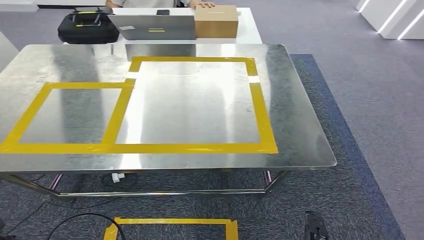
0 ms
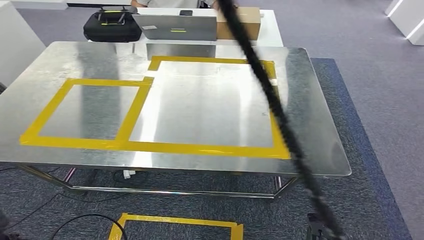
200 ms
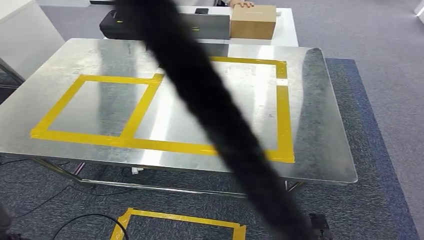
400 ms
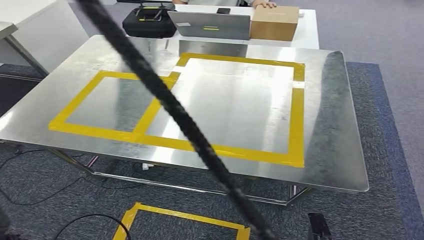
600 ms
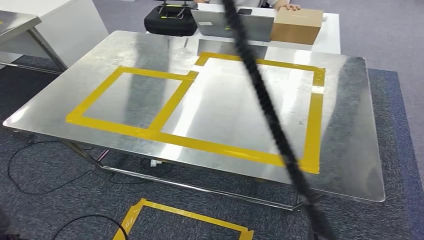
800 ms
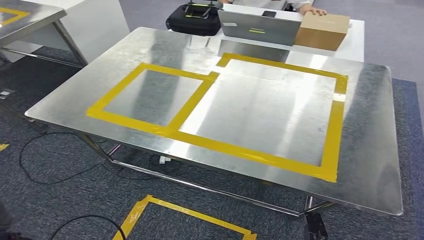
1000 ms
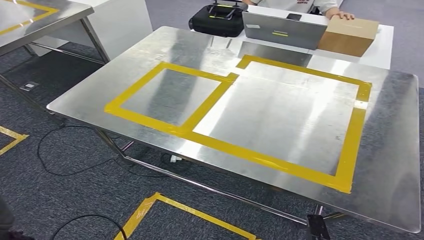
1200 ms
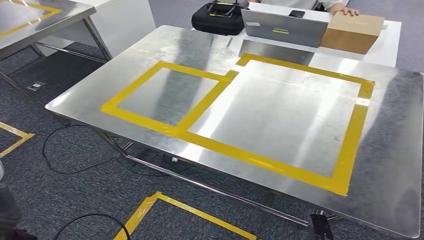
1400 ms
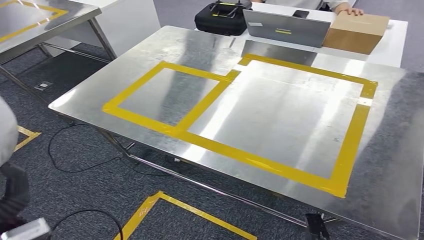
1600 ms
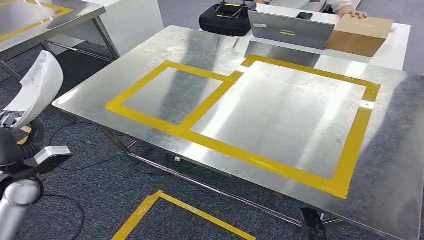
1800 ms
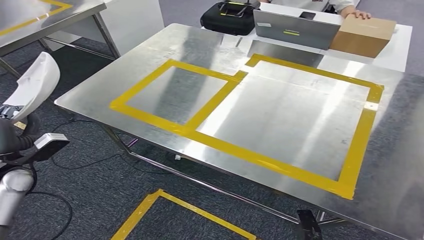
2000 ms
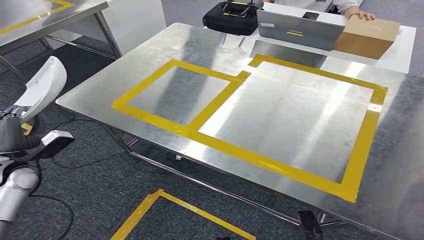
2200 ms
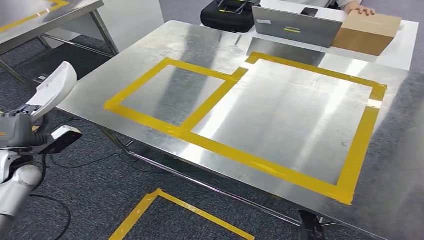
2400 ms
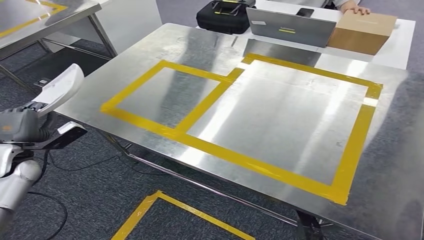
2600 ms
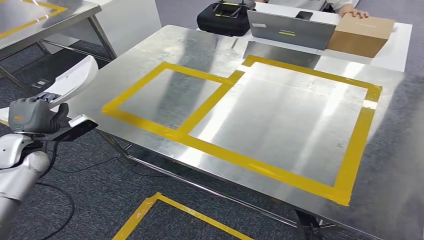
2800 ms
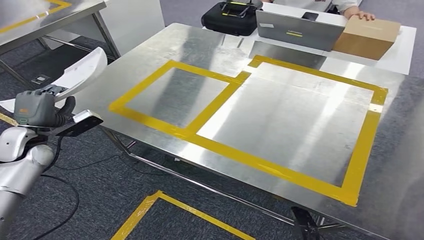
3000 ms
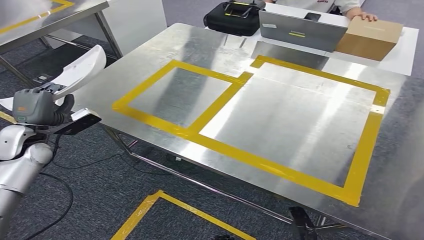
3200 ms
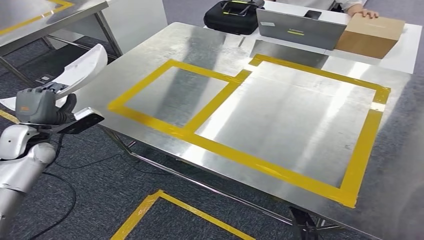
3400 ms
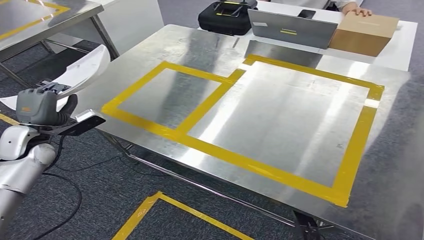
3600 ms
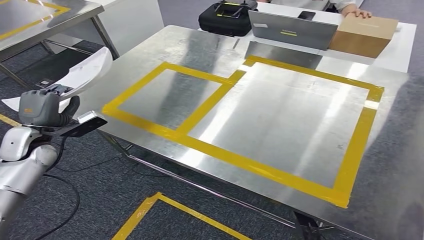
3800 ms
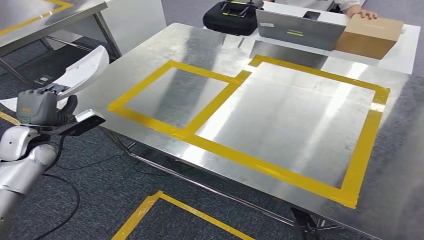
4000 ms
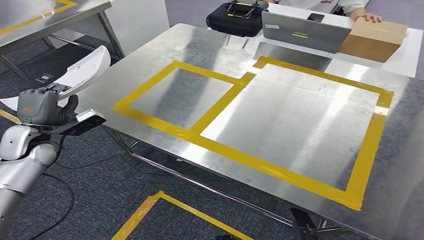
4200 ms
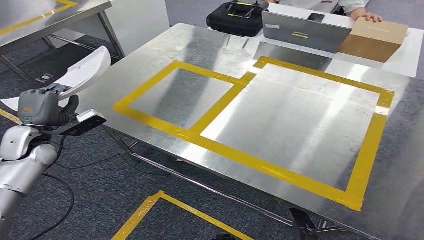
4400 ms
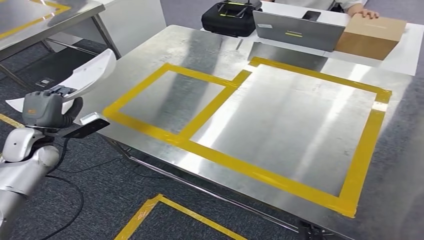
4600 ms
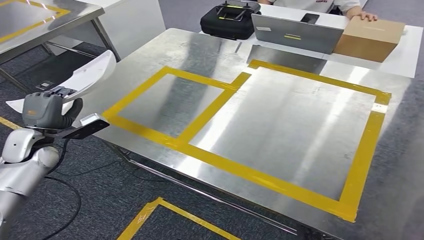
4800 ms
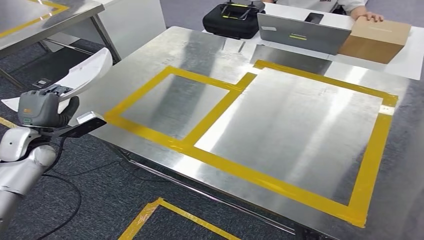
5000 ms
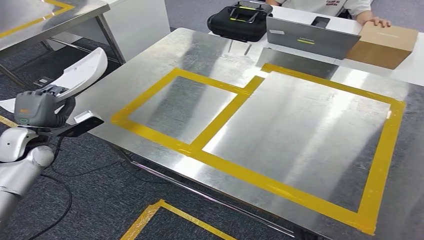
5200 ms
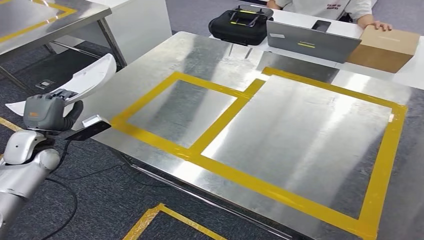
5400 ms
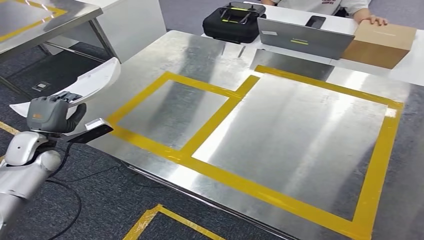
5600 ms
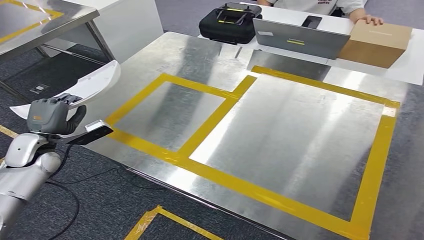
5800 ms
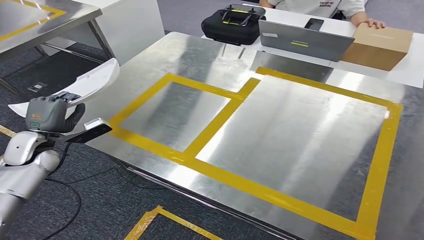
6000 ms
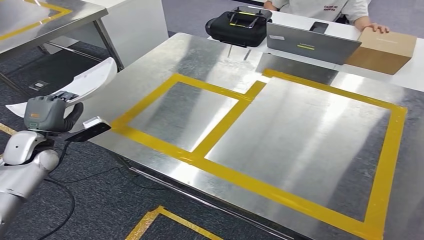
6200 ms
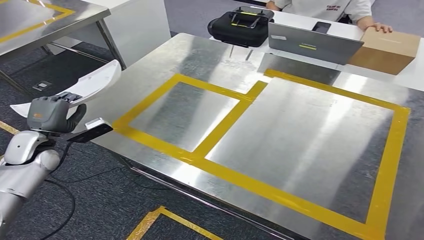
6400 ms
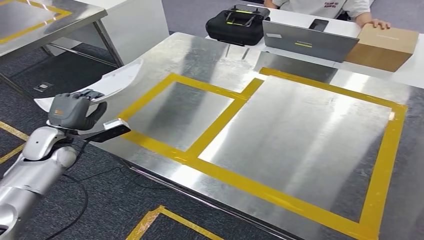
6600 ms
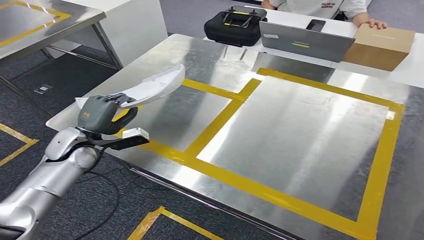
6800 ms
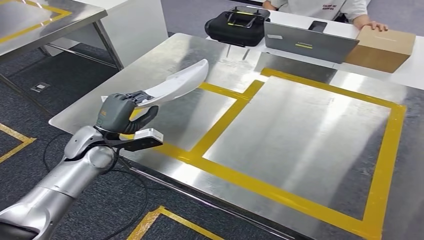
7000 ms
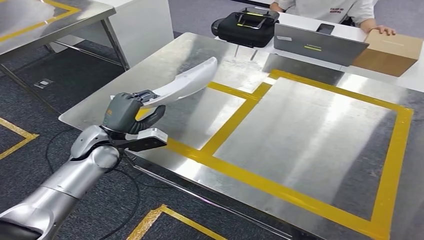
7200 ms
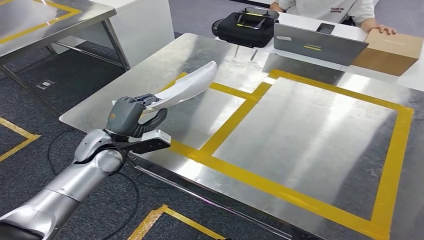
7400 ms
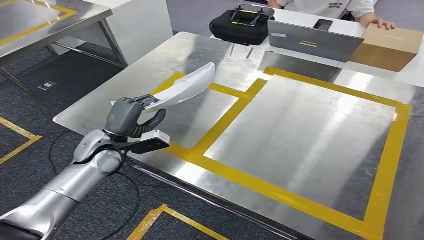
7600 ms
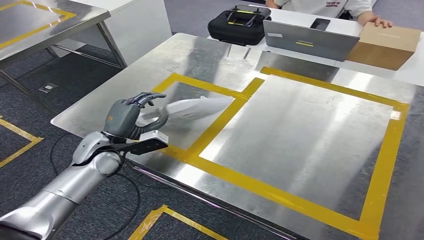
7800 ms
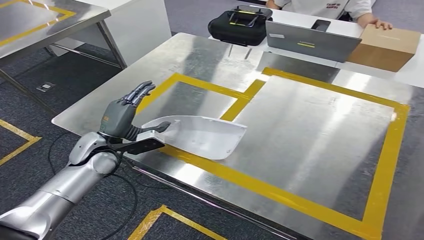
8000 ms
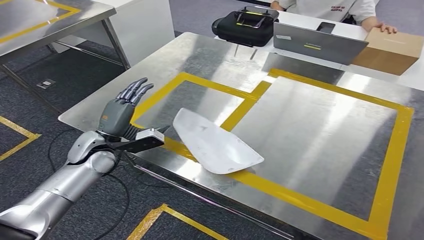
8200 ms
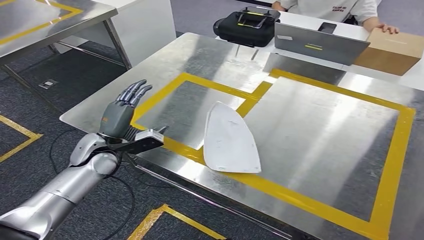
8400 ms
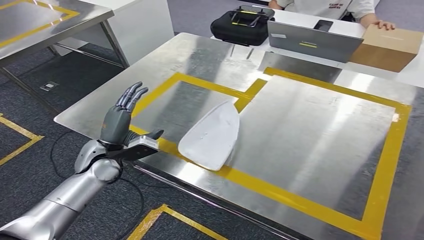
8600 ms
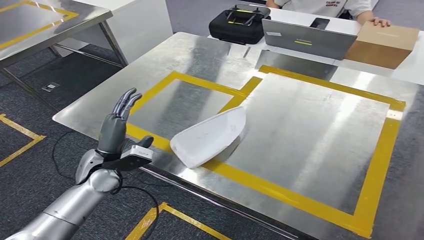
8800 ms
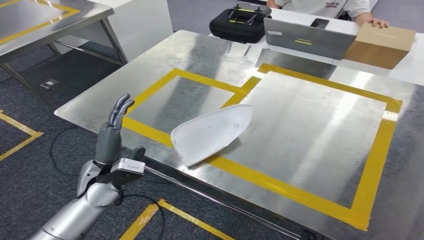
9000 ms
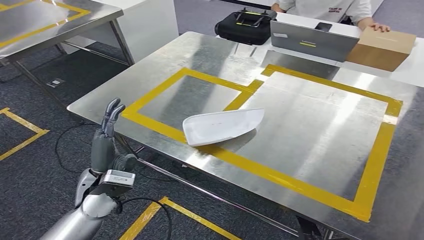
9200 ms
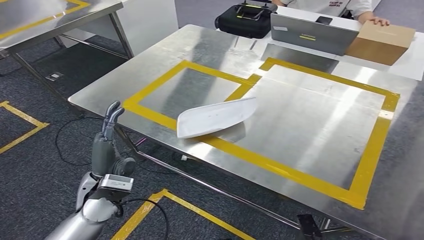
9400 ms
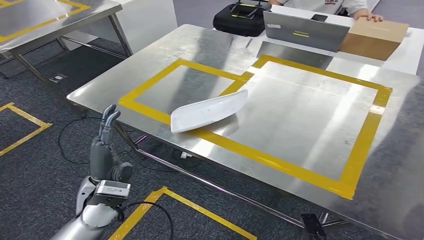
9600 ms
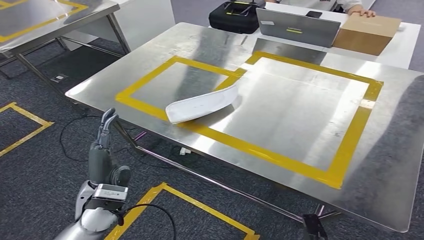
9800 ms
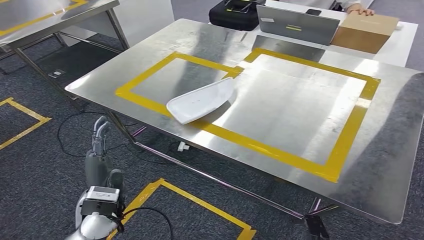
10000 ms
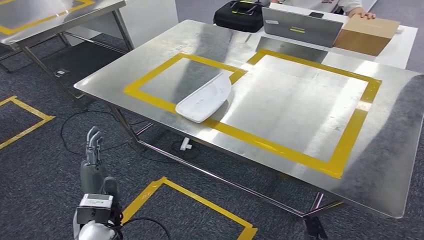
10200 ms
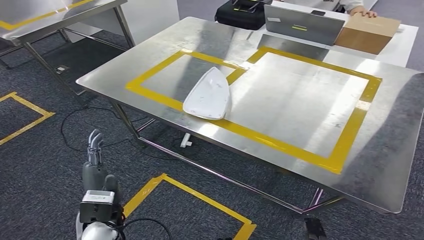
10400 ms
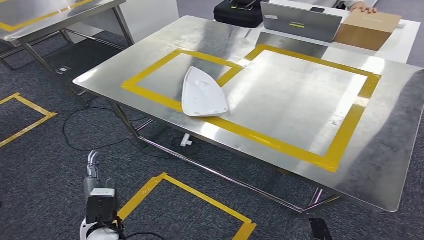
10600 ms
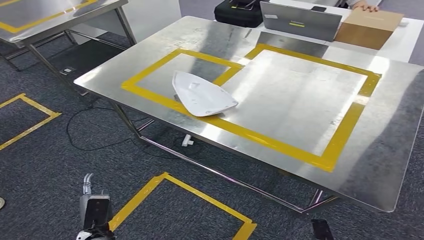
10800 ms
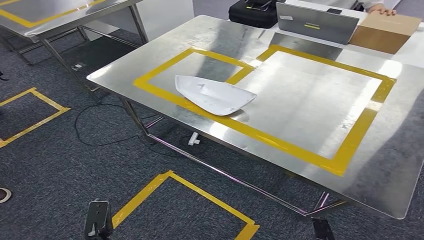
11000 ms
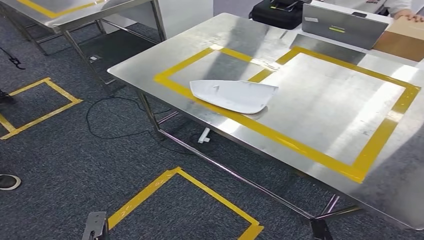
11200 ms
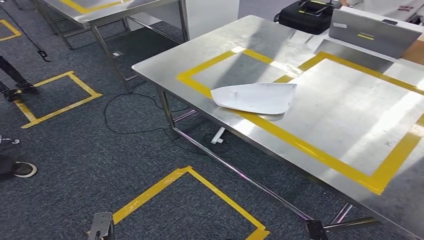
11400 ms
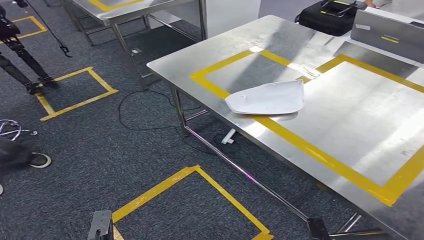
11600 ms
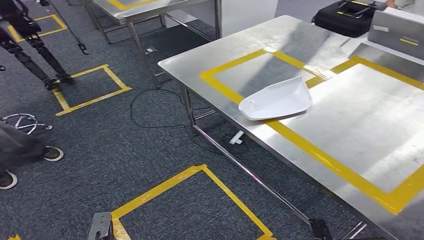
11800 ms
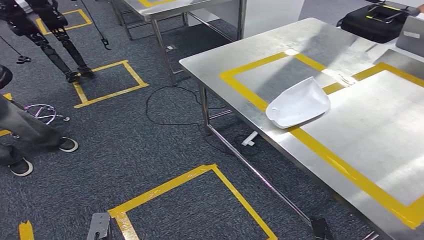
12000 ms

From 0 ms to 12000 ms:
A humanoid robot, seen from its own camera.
Step, from 0 ms to 10200 ms: Insert the small component into the corresponding slot on the workbench.
From 3000 ms to 4400 ms: Neither hand changes place.

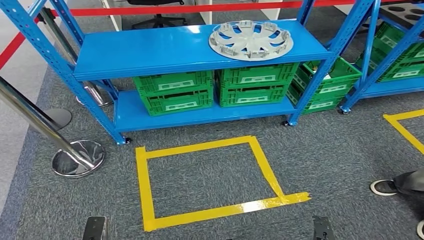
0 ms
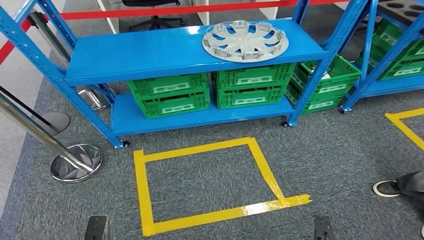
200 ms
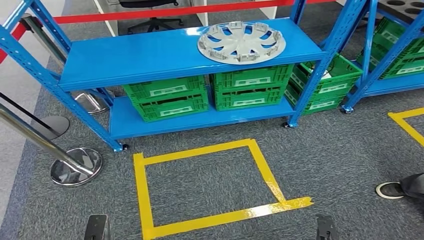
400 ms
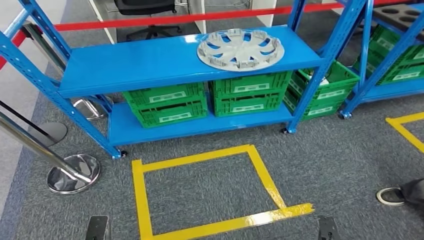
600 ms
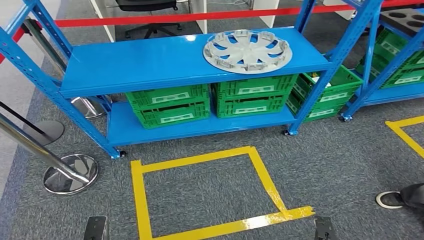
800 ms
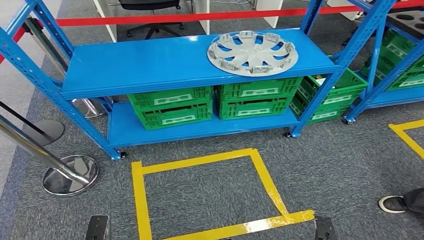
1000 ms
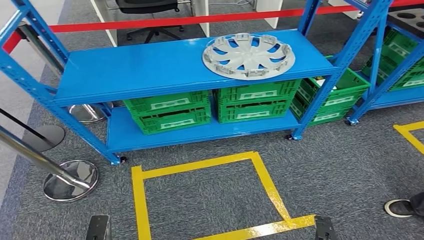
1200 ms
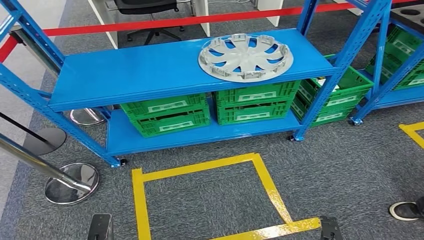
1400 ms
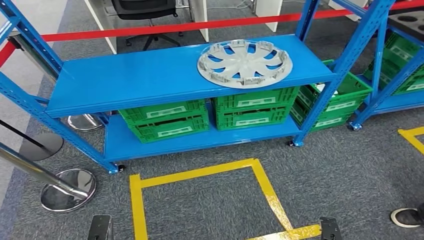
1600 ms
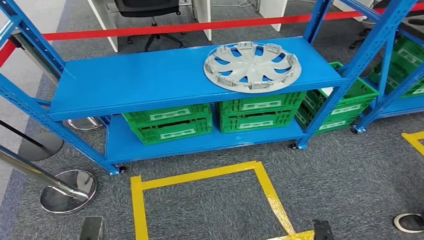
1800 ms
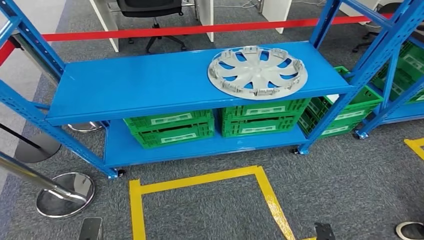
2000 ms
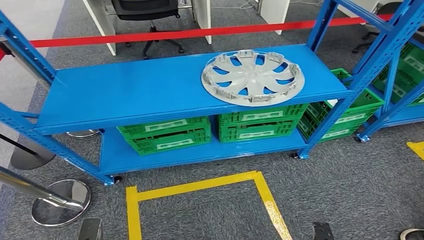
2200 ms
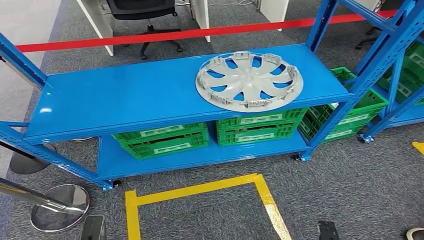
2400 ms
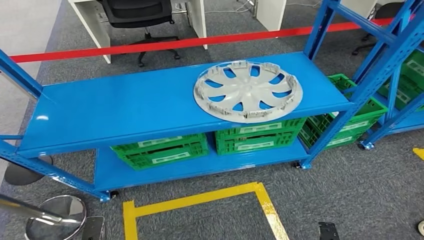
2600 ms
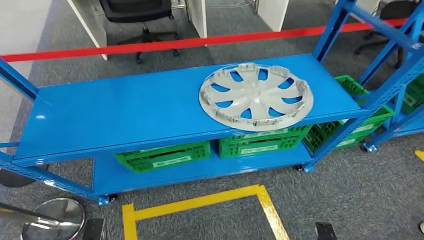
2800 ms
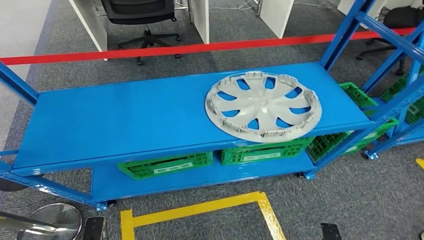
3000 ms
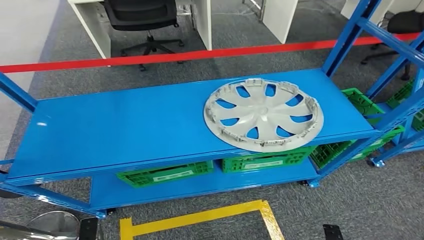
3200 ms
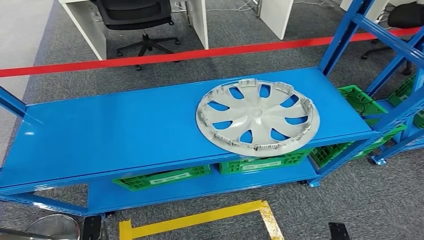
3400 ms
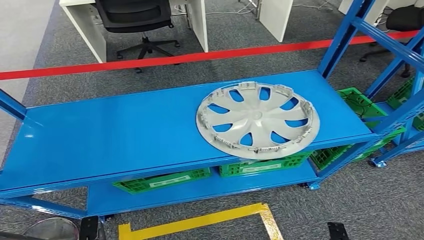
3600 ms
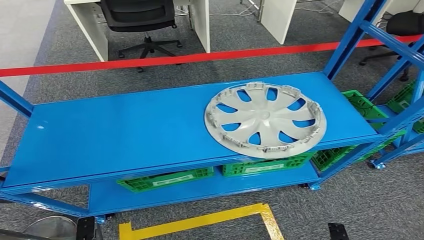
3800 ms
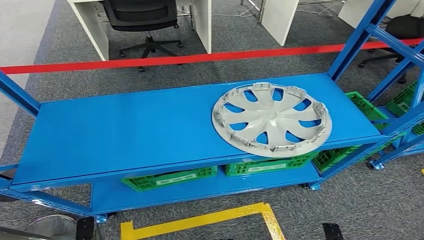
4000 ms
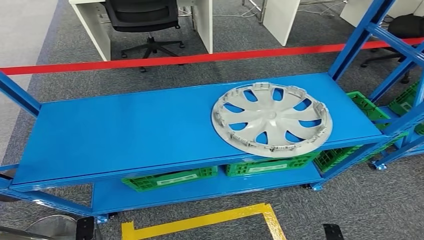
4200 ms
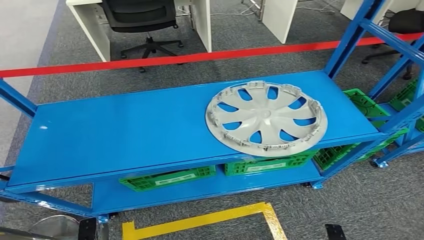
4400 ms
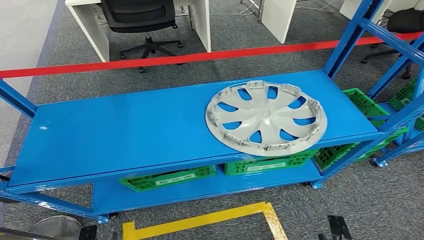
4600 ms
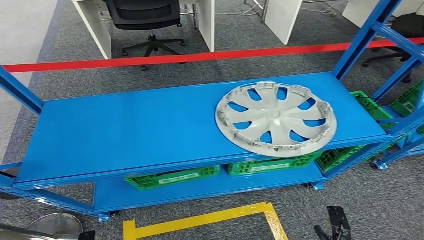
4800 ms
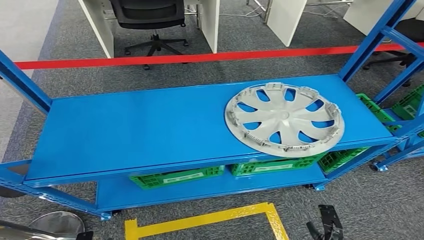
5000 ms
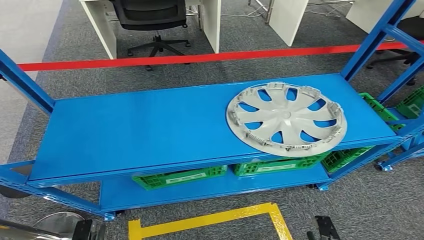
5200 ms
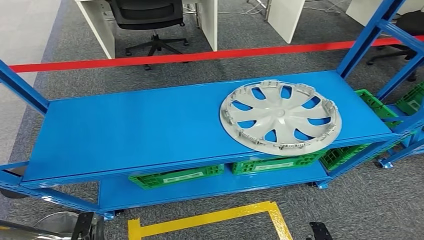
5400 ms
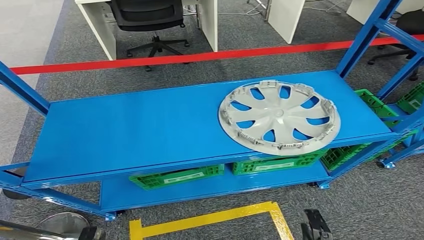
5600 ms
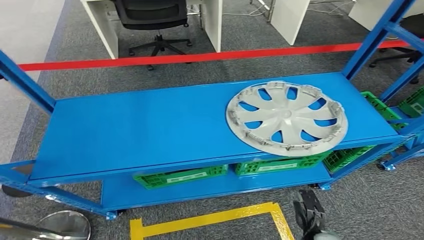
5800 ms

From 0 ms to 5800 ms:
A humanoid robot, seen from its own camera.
Step, from 0 ms to 5800 ms: Return to the initial position at the workbench.
